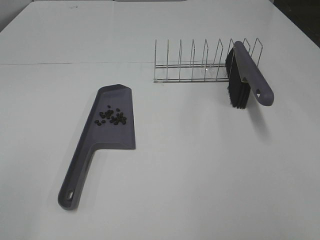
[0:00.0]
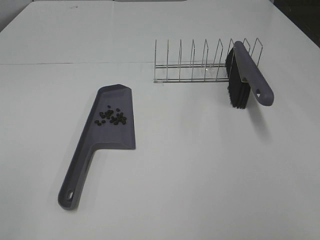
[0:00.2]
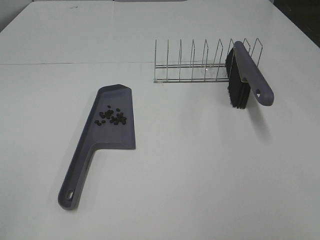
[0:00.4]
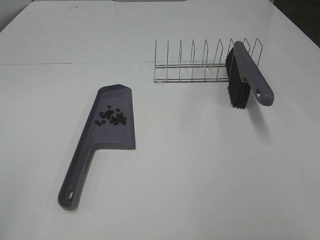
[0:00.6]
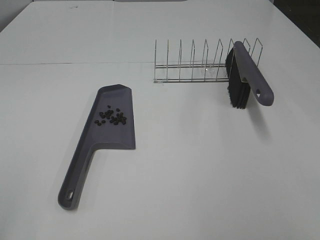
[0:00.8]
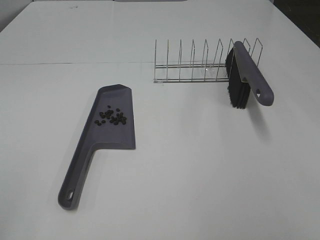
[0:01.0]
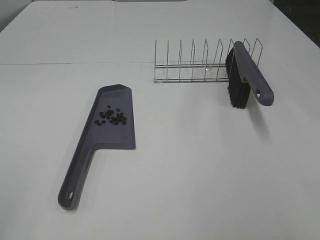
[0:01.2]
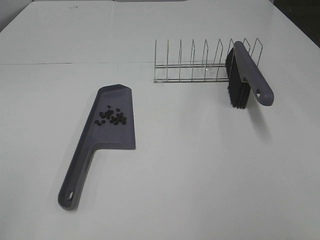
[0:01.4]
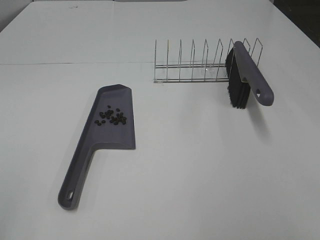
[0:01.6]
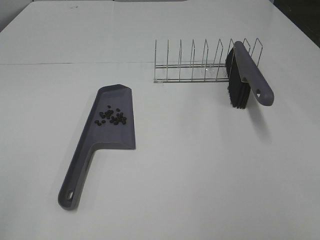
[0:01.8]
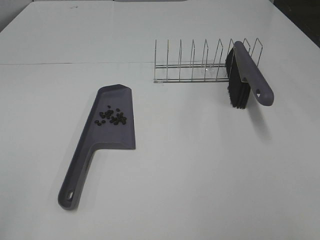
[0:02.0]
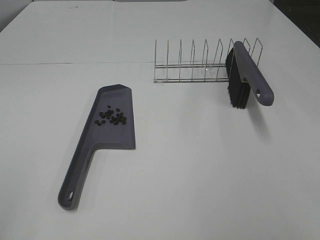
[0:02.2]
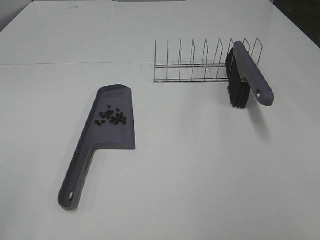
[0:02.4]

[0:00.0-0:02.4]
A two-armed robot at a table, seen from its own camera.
Task of the whole recording: Sweep Coffee Bean.
0:01.2 to 0:02.4: The two grippers keep their place.
